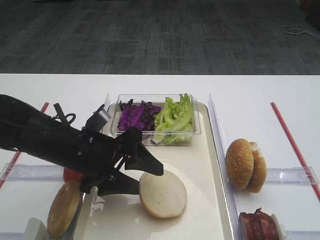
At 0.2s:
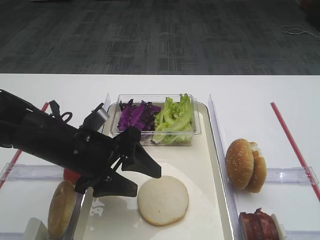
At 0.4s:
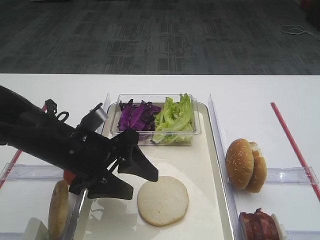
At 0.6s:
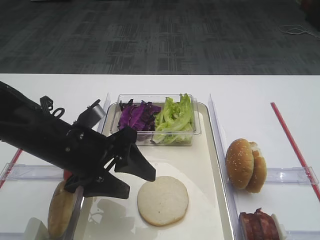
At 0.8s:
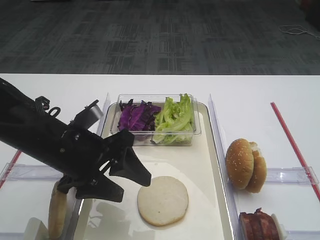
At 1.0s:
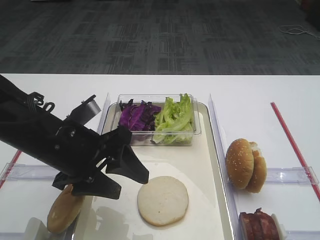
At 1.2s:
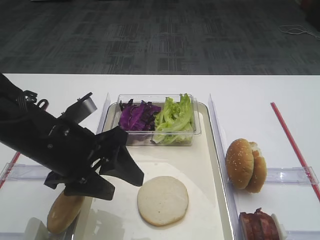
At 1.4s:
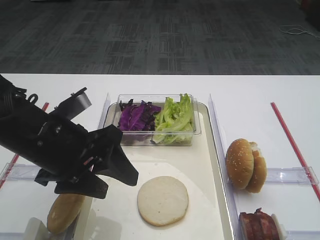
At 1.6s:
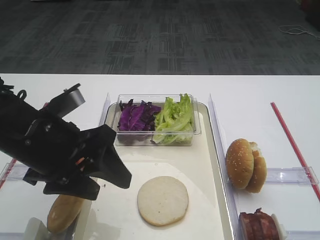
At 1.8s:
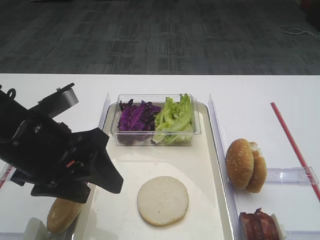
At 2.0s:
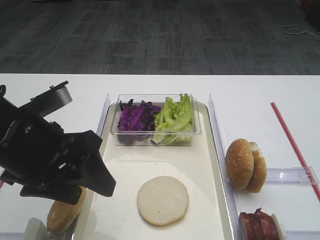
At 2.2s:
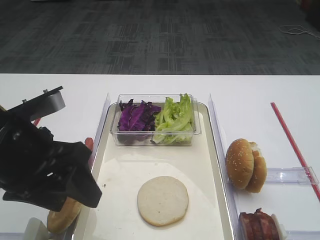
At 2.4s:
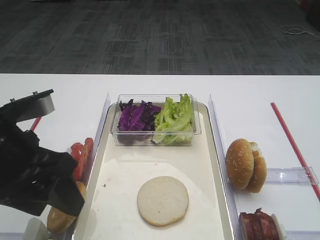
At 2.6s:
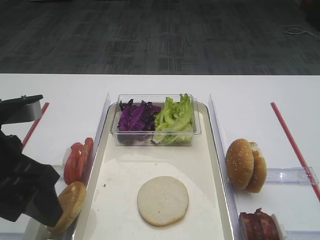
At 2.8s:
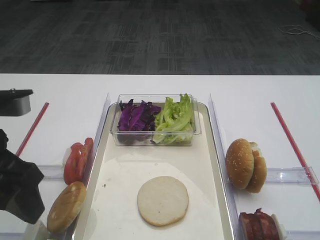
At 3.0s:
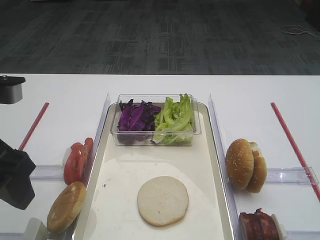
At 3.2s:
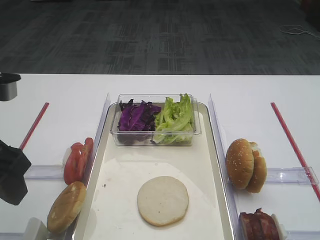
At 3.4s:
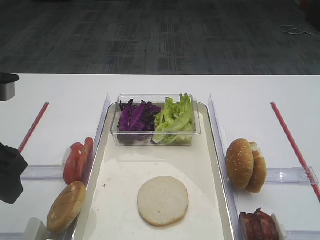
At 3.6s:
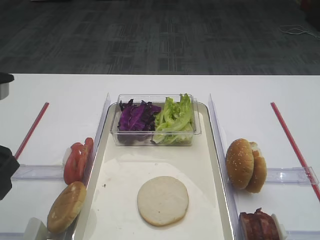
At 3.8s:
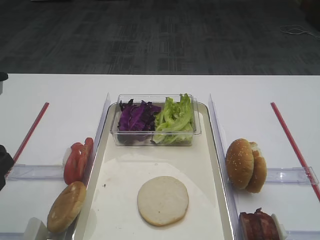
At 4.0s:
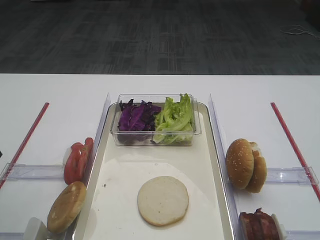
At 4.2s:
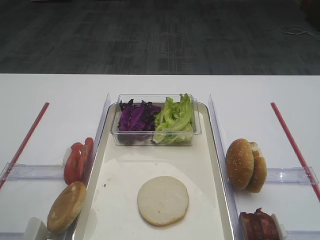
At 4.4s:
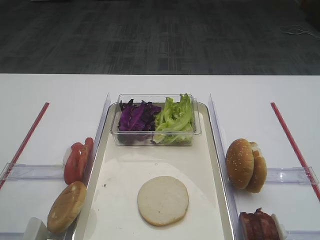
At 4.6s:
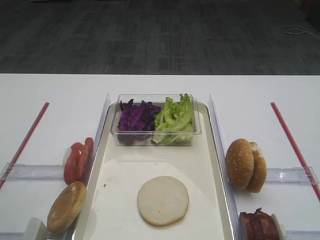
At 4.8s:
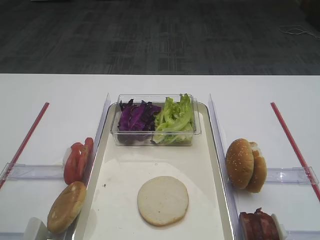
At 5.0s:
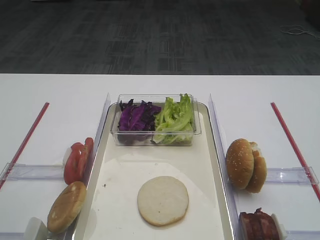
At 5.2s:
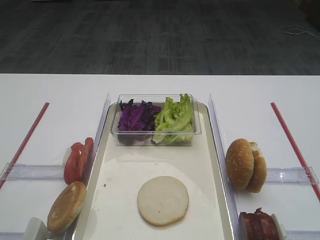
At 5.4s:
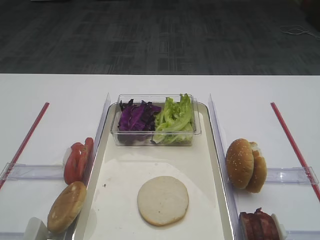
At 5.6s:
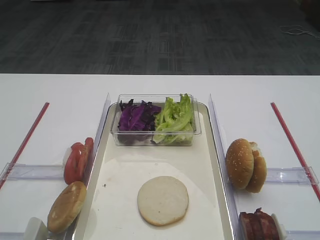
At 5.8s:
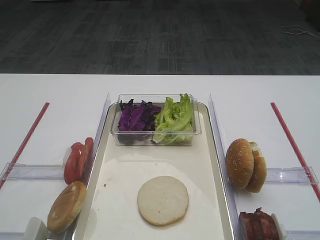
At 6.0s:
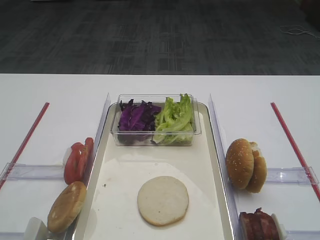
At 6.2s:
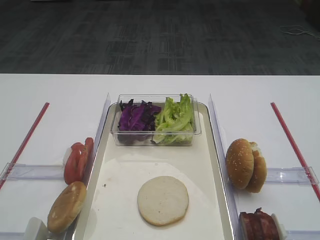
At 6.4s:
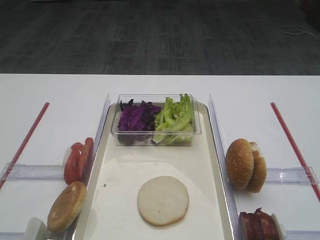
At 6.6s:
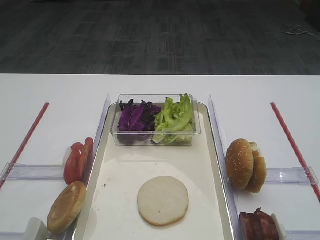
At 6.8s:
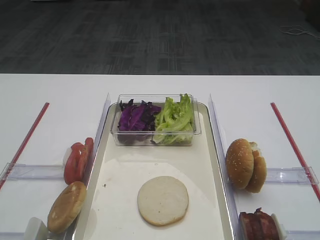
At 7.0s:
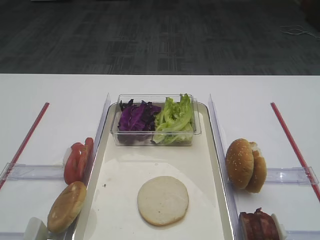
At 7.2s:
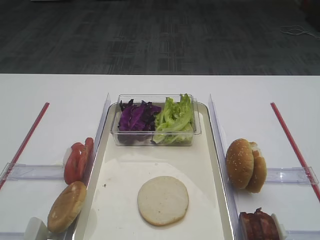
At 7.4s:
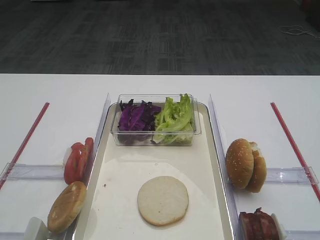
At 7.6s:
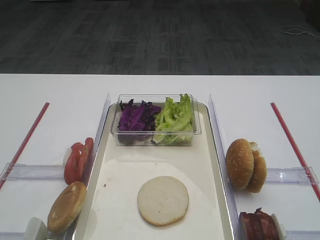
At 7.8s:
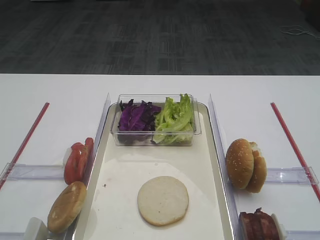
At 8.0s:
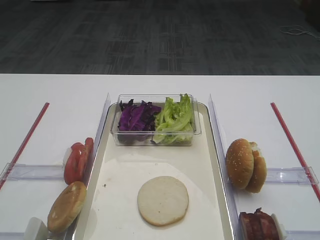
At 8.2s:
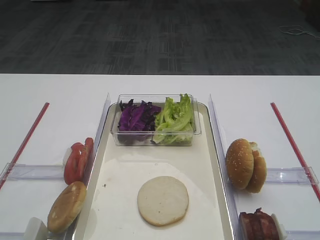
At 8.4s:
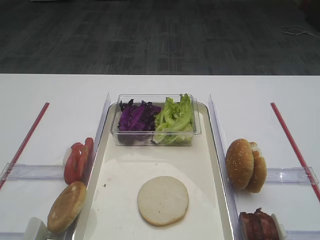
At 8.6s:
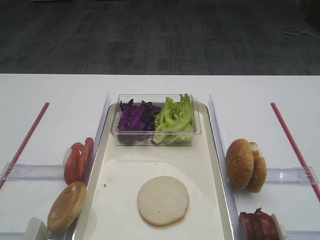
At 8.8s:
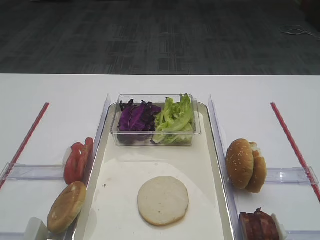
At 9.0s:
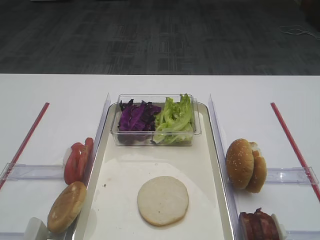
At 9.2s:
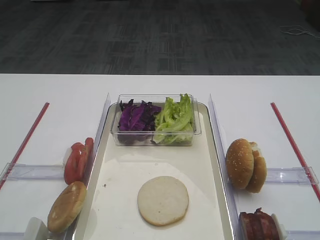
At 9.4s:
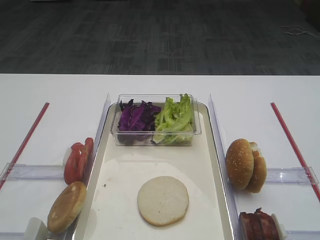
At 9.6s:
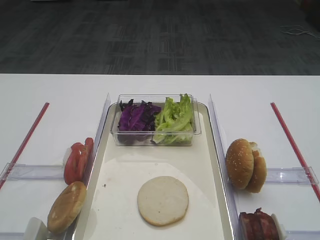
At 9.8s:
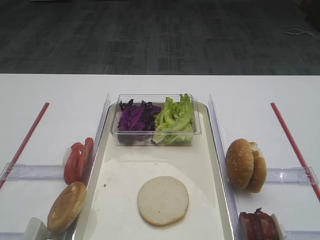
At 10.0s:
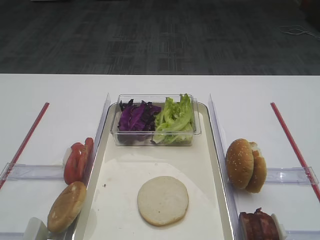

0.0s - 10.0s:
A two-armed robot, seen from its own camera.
0.0s - 1.4s: The left gripper goes roughly 5 cm upward.
1.4s - 2.8s: The left gripper goes approximately 10 cm to the left and upward.
2.8s - 4.2s: The left gripper goes approximately 5 cm to the left.
7.2s - 10.0s: Neither gripper changes place.

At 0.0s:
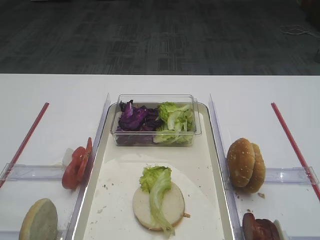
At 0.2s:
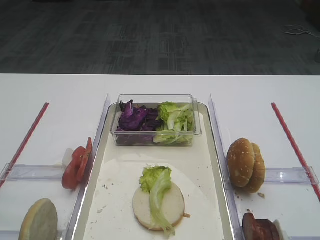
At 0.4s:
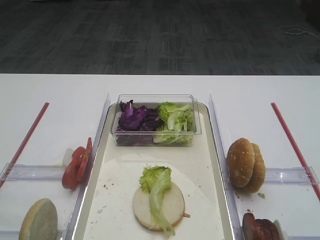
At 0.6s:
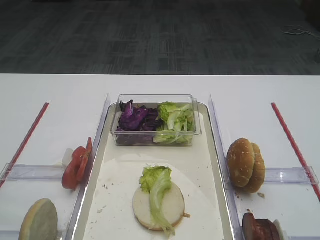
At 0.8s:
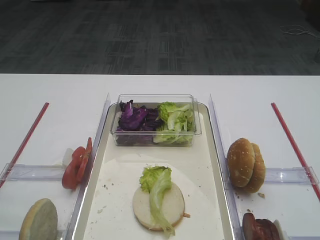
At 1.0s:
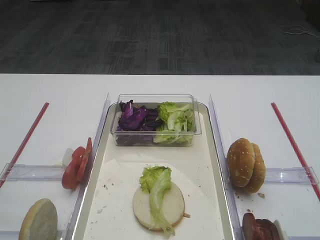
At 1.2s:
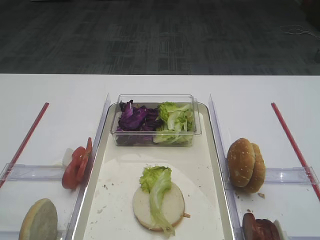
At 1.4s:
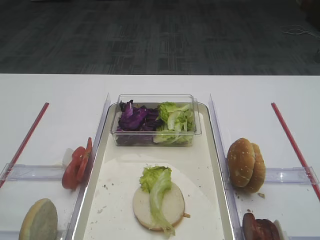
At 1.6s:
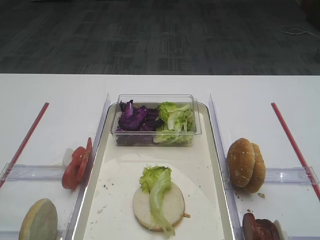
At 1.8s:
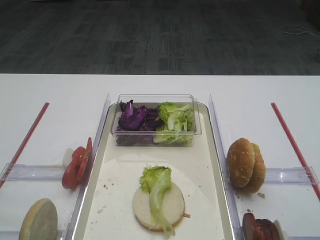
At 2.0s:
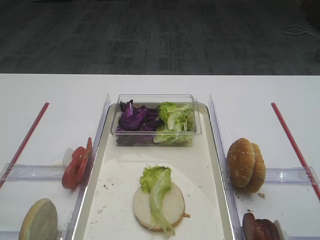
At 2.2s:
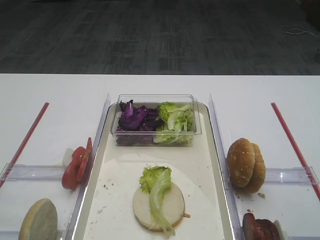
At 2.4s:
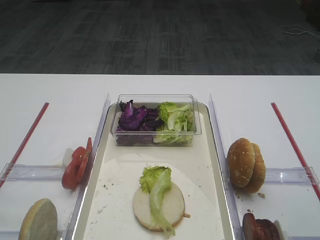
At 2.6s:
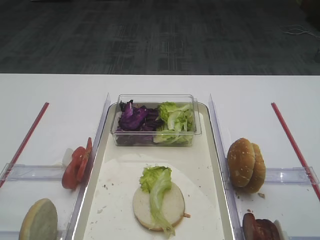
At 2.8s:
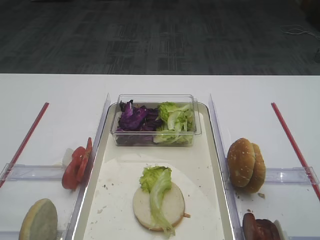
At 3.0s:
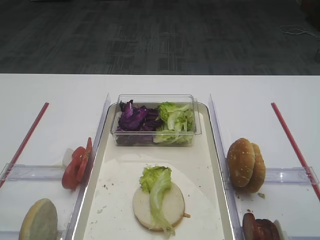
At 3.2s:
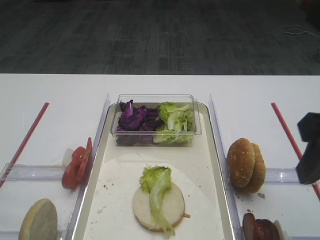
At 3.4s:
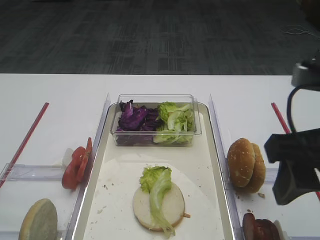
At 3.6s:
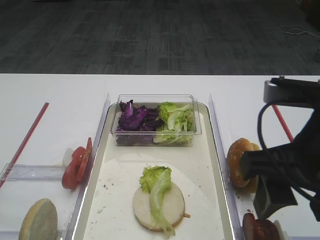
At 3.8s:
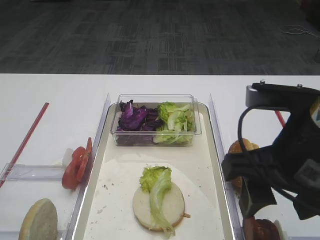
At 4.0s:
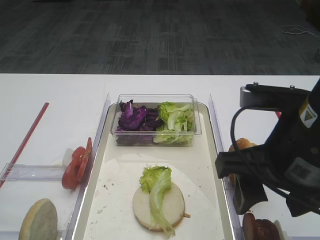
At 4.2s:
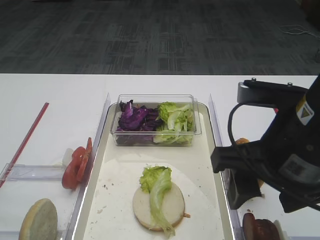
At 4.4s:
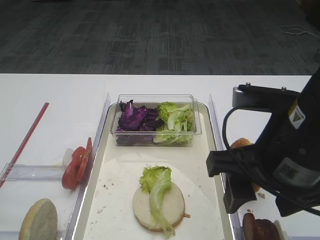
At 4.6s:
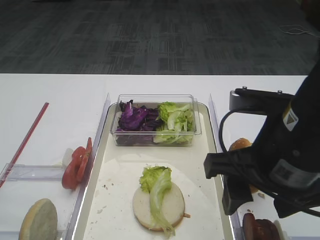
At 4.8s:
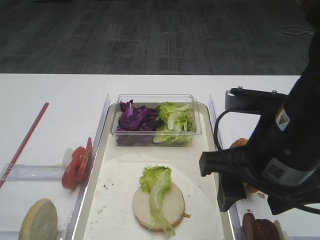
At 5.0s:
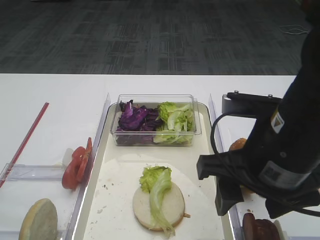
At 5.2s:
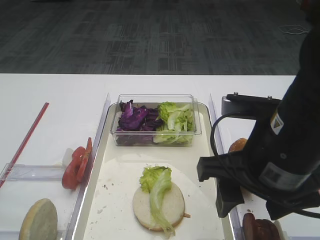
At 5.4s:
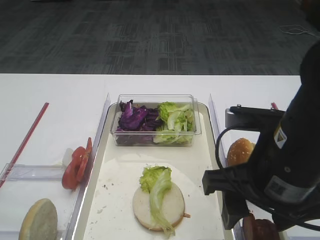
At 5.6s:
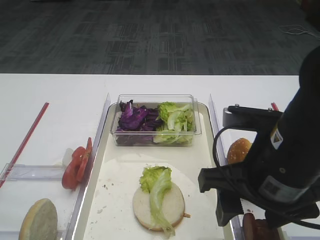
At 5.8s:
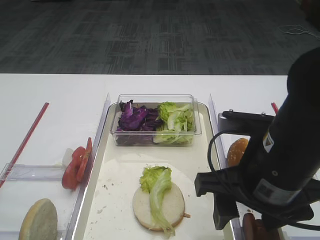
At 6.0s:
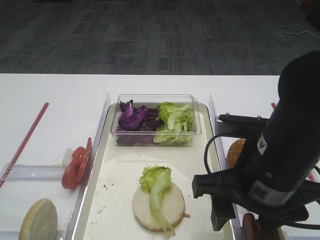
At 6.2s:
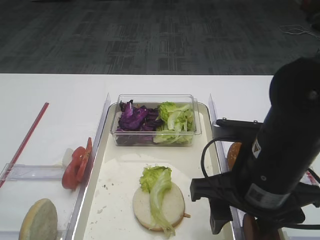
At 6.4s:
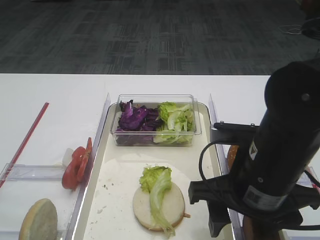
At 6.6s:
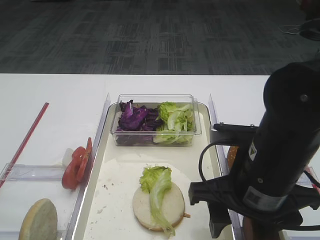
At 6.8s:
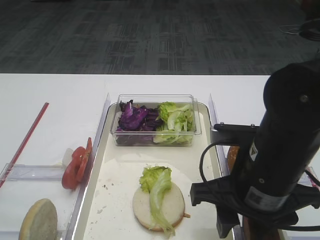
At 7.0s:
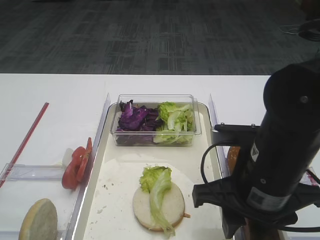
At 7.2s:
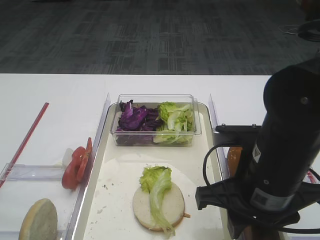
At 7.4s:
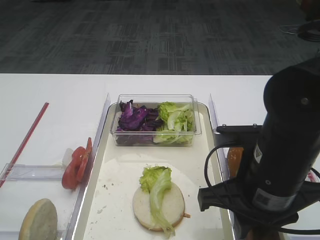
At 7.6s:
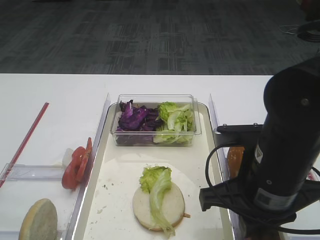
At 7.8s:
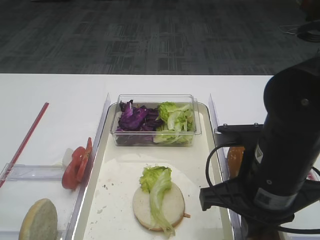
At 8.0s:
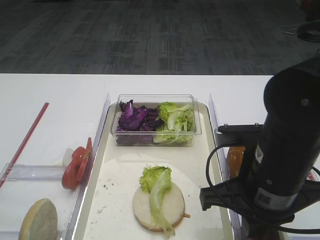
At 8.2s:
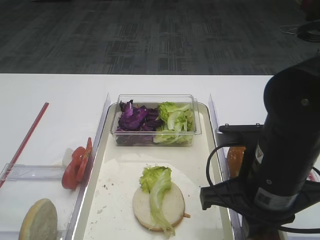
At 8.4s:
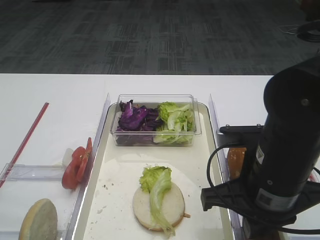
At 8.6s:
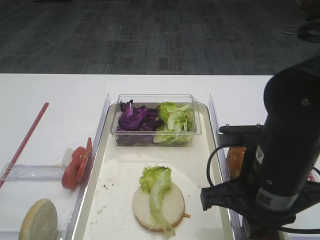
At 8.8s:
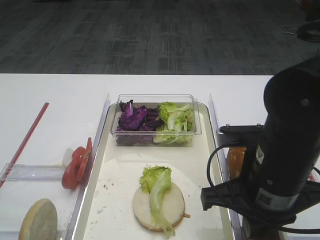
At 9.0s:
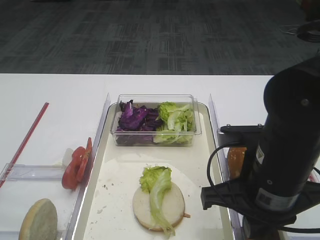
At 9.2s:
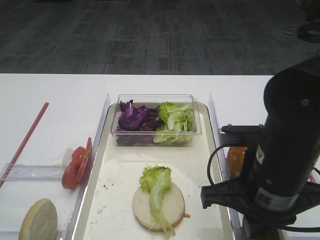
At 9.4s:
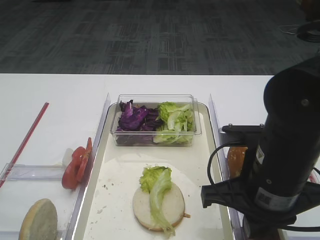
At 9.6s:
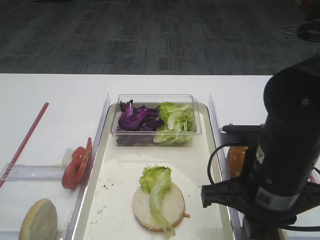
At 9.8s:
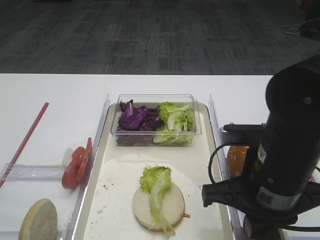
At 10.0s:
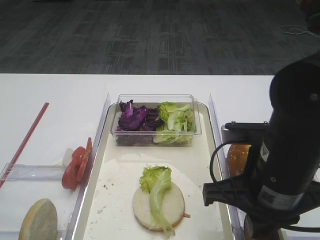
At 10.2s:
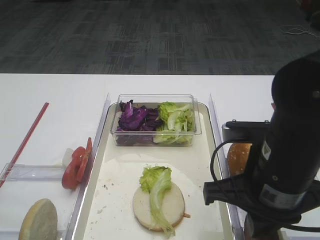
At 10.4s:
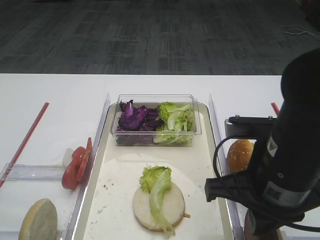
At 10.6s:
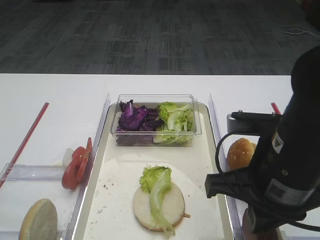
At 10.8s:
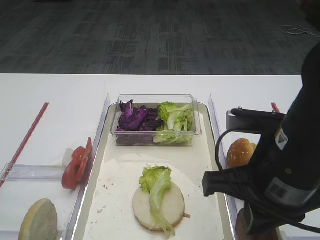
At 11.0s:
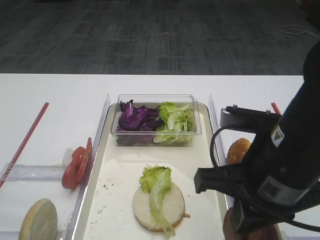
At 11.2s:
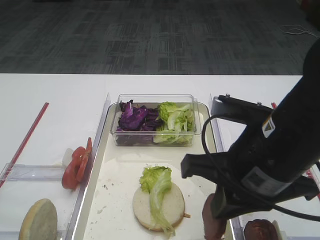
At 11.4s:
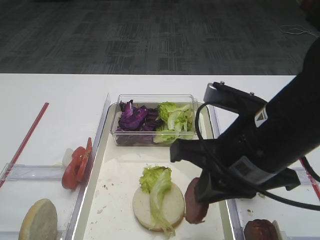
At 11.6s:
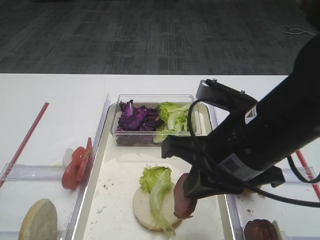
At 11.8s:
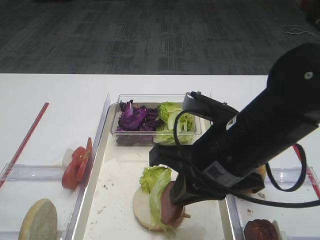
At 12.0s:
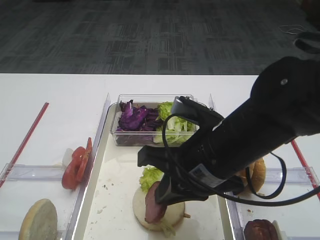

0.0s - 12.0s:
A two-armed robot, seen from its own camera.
Step, 0.0s - 10.8s: Pick up the cutlet with the right gripper.
3.0s - 4.4s: The right gripper travels to the left and downward by some 10 cm.
4.4s - 6.0s: The right gripper ends up some 5 cm from where it was.
6.0s - 7.6s: The right gripper closes its fingers.
7.6s - 9.0s: Both grippers stay about where they are.
9.0s - 10.4s: The grippers move only a little.
10.4s - 12.0s: The right gripper travels to the left by approximately 5 cm.

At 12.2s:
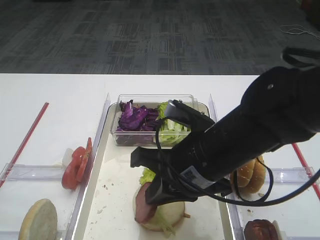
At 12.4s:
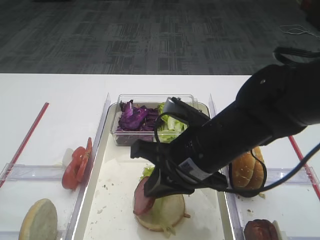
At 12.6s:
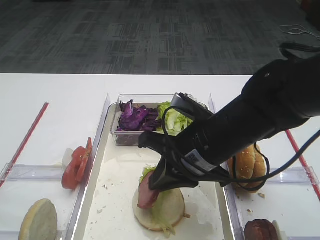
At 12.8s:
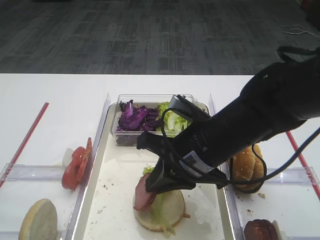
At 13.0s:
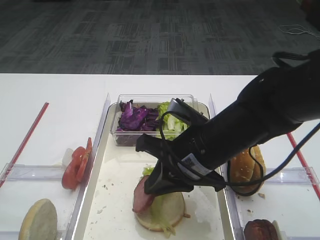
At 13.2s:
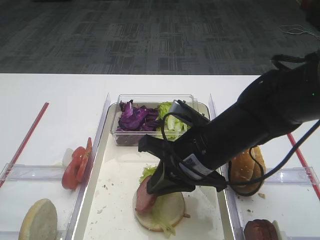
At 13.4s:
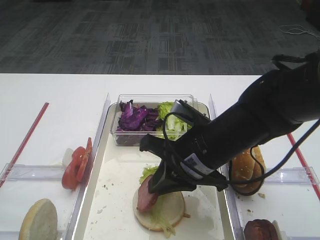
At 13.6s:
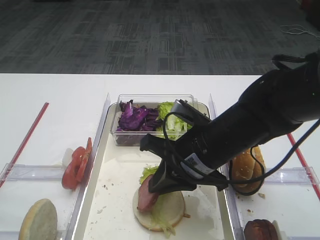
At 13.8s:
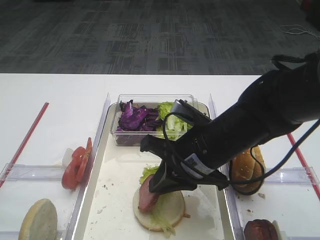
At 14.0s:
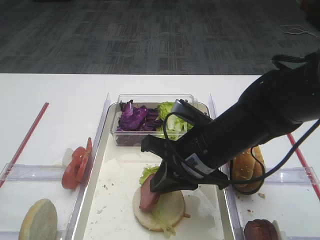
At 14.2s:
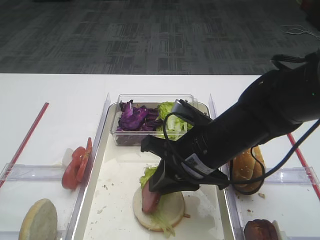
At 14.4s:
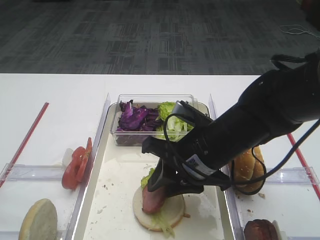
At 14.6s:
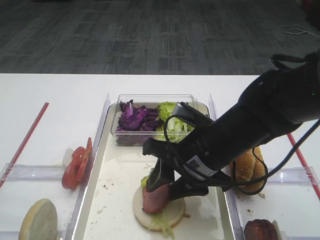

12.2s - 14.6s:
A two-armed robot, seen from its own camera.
12.2s - 13.4s: The grippers stay close to where they were, moving slightly.
13.4s - 14.6s: The right gripper opens up.
